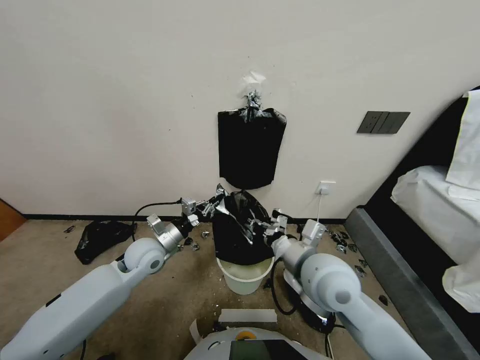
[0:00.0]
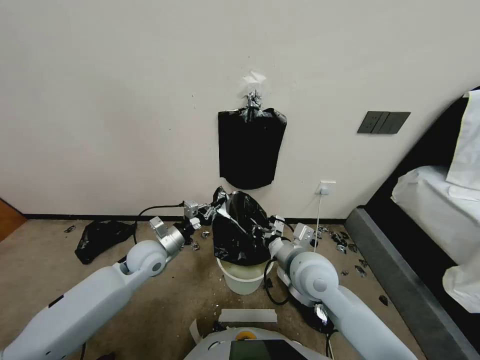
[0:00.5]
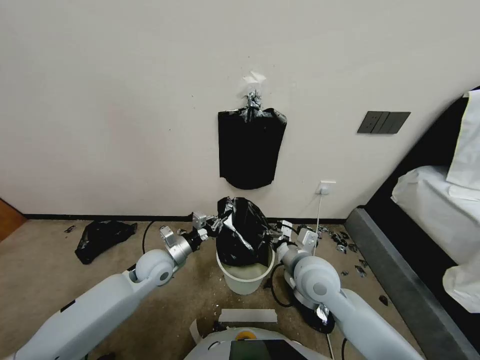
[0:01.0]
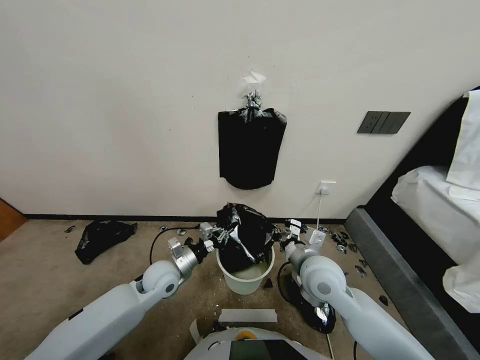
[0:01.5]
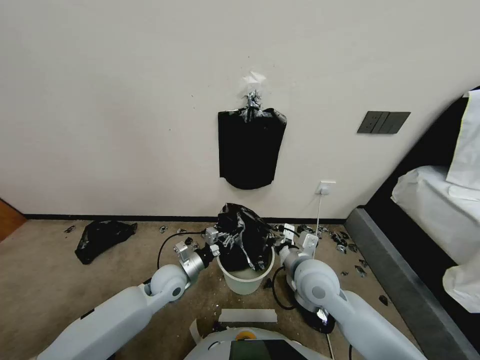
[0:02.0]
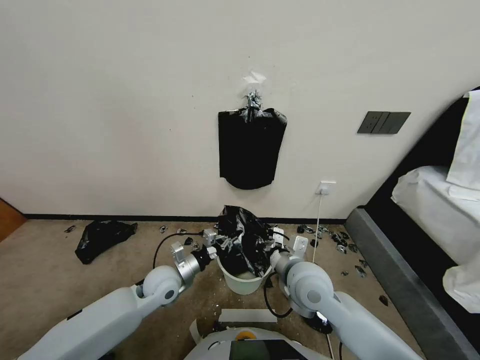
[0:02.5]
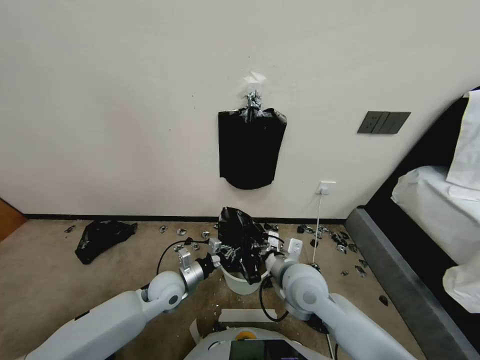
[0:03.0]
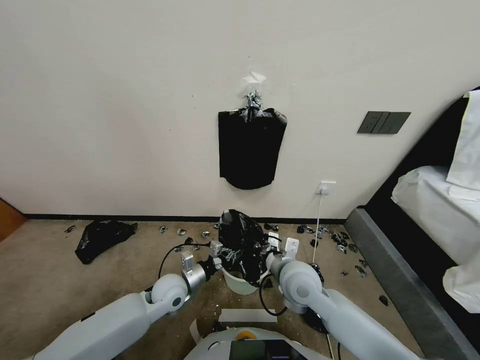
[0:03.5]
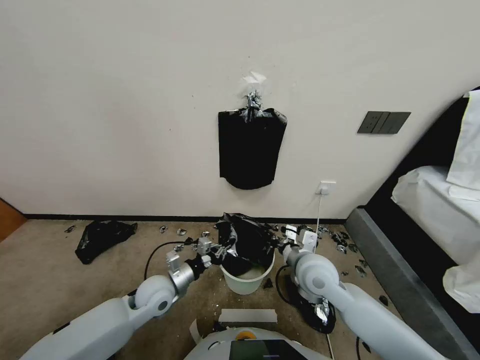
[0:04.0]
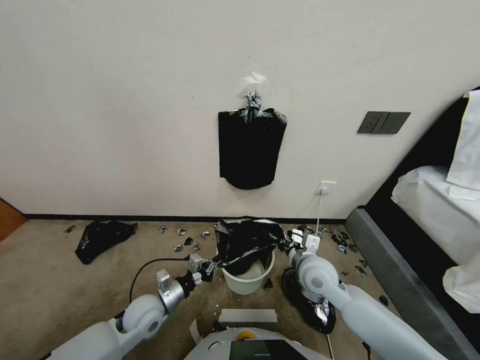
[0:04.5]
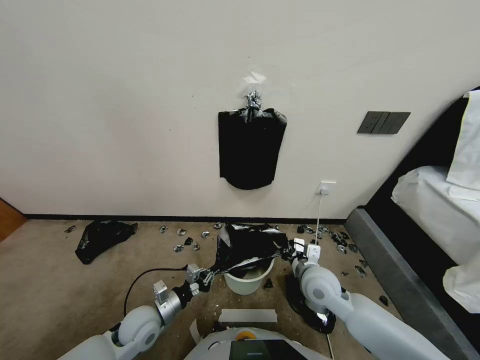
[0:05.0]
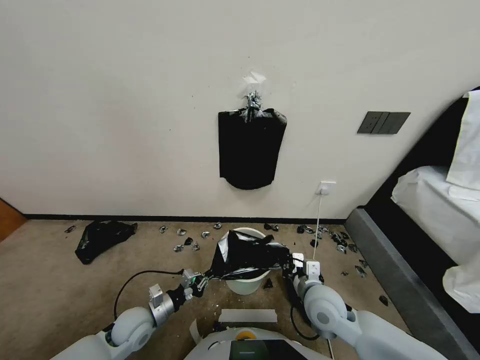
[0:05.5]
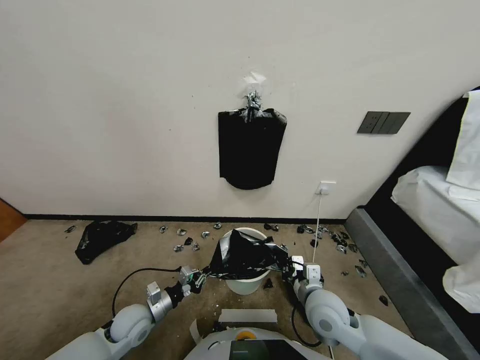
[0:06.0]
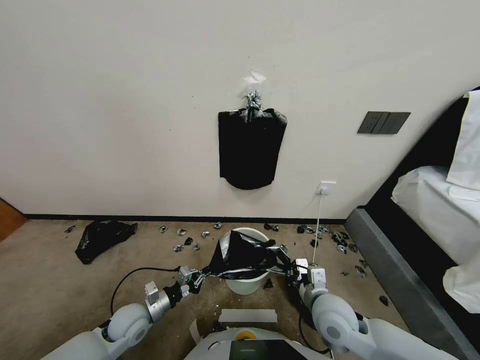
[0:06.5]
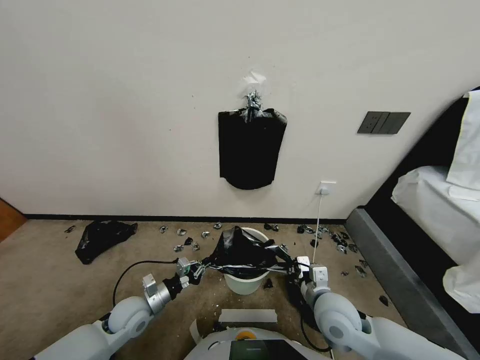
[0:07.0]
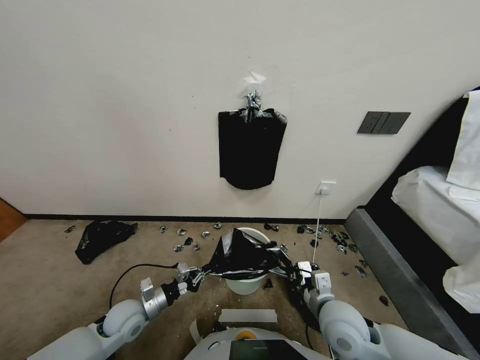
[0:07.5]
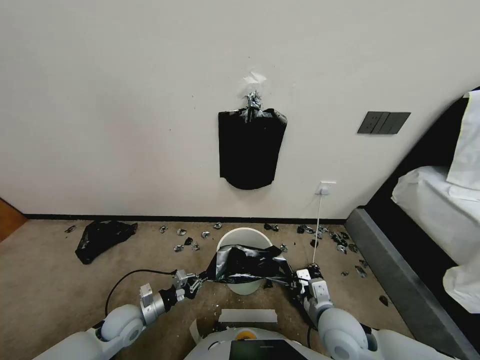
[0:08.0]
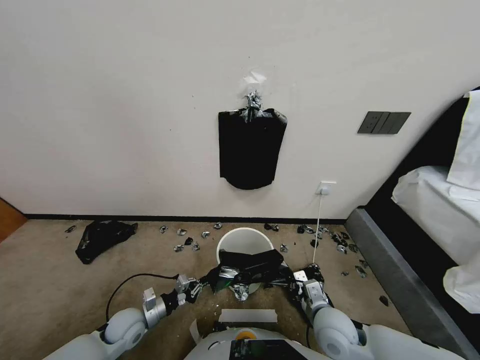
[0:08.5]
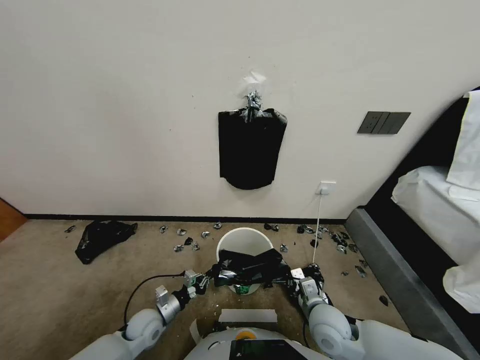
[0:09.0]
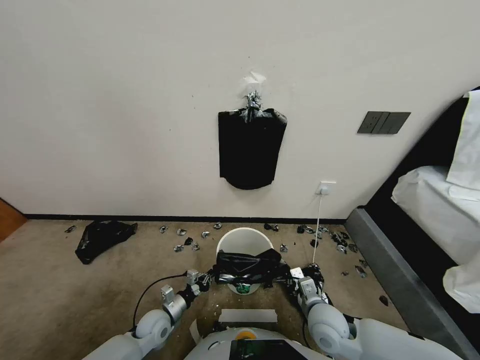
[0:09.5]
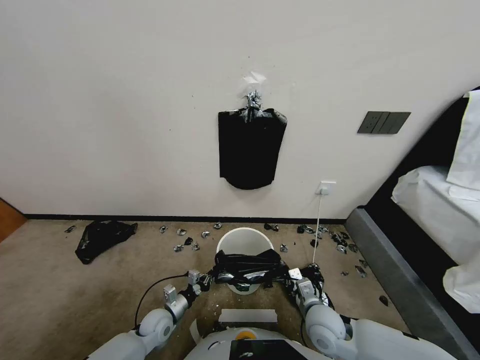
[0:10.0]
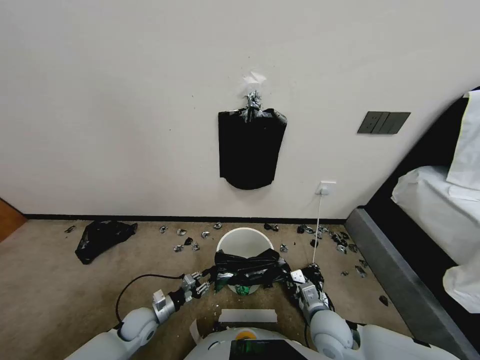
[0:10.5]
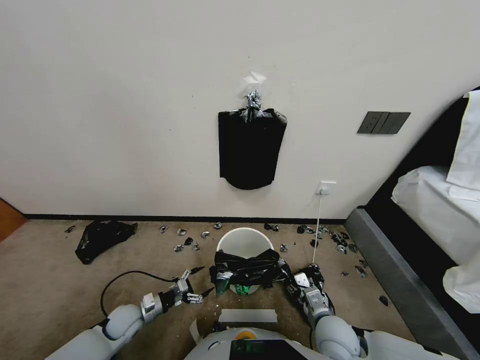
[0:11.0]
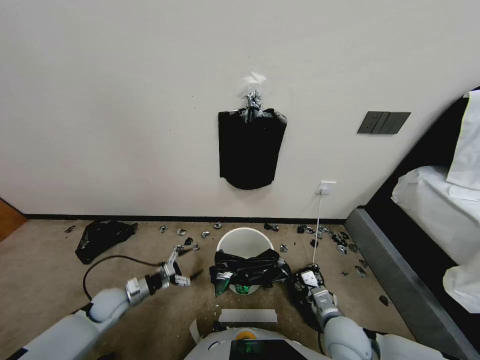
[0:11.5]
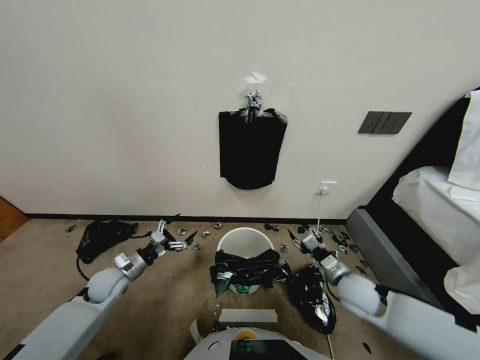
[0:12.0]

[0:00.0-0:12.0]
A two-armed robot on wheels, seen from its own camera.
Task of the whole recording: Place a trash bag onto the trash bin.
0:00.0 to 0:02.0: Both grippers travel together downward, about 5 cm.
0:02.0 to 0:04.0: The grippers make only small movements.
0:04.0 to 0:06.0: The right gripper shifts some 10 cm backward and downward. Meanwhile the left gripper shifts approximately 10 cm downward and to the left.
0:06.0 to 0:08.0: There are only small adjustments of the grippers.
0:08.0 to 0:10.0: The right gripper is displaced downward by some 5 cm; the left gripper shifts roughly 10 cm downward and to the right.
0:10.0 to 0:12.0: The left gripper is displaced upward, to the left and forward by some 20 cm, and opens; the right gripper moves to the right, forward and upward, roughly 15 cm, and opens its fingers.

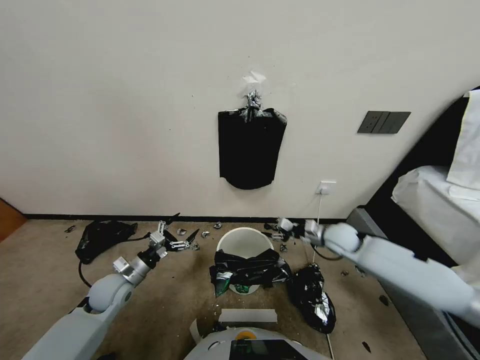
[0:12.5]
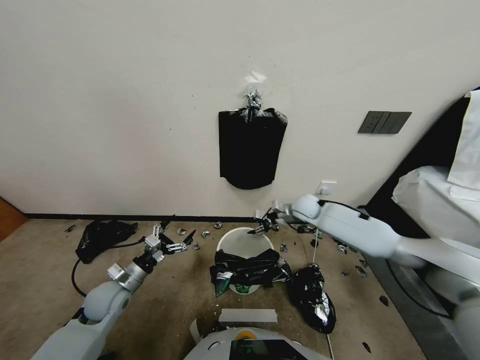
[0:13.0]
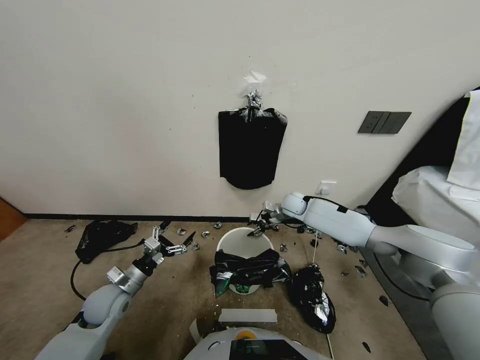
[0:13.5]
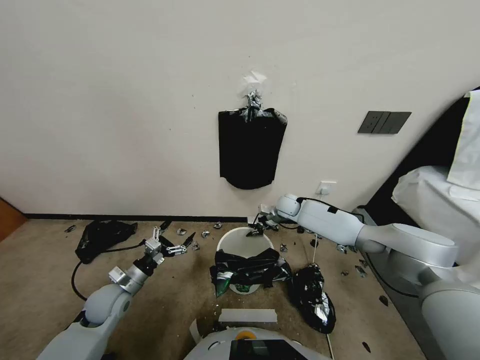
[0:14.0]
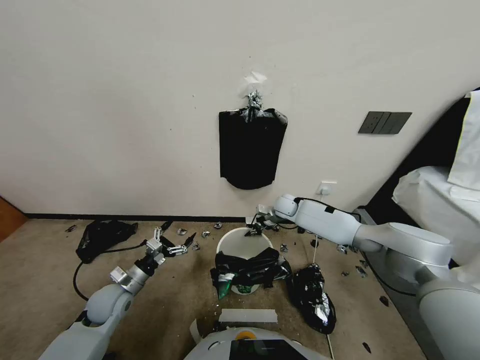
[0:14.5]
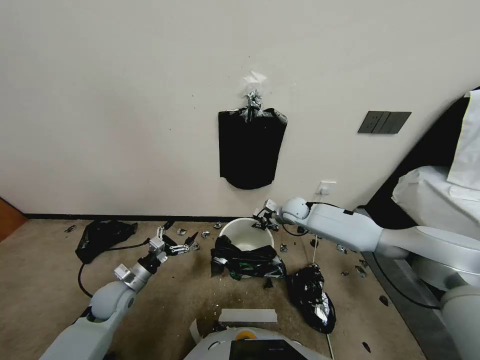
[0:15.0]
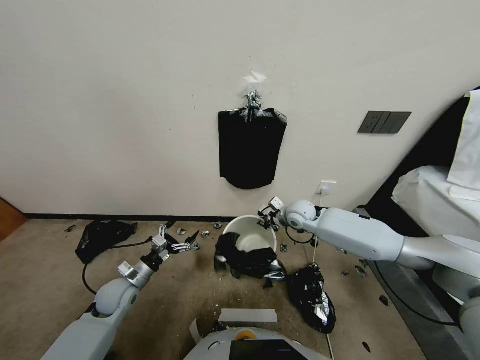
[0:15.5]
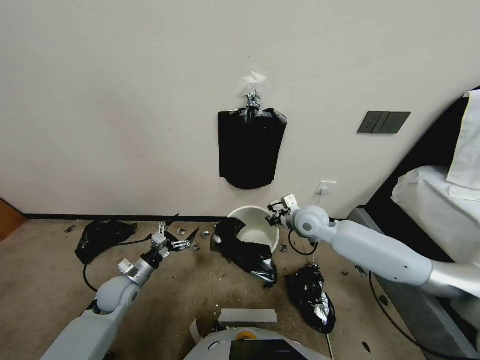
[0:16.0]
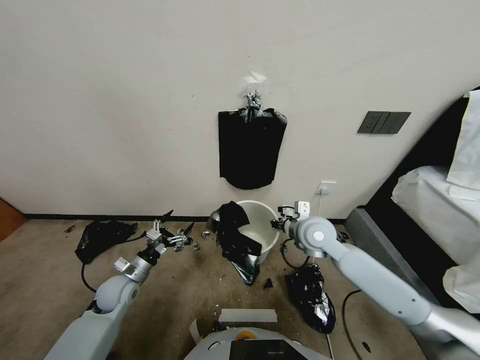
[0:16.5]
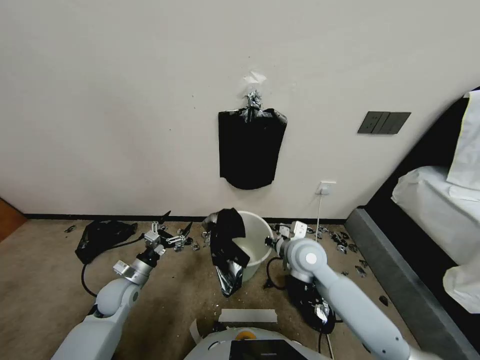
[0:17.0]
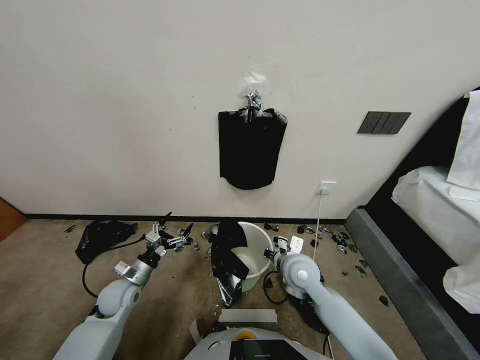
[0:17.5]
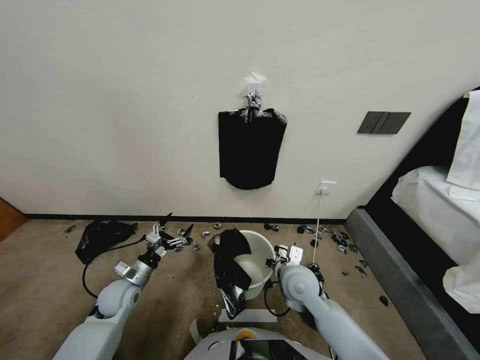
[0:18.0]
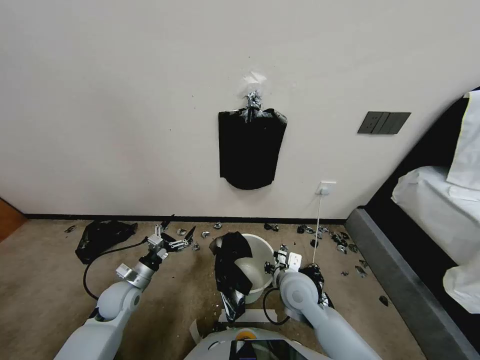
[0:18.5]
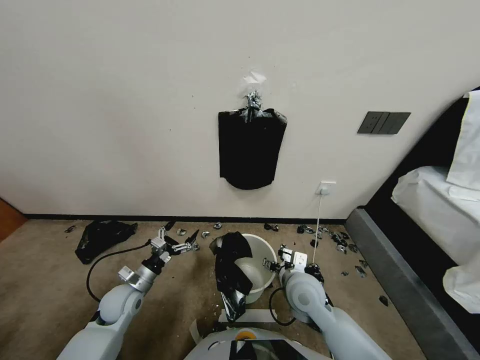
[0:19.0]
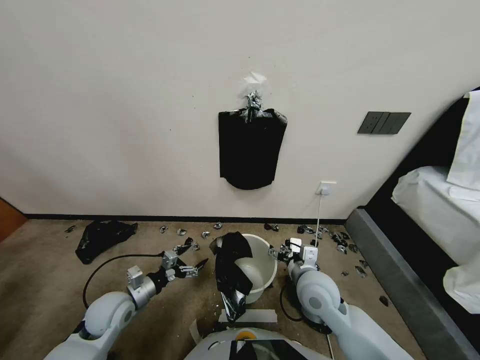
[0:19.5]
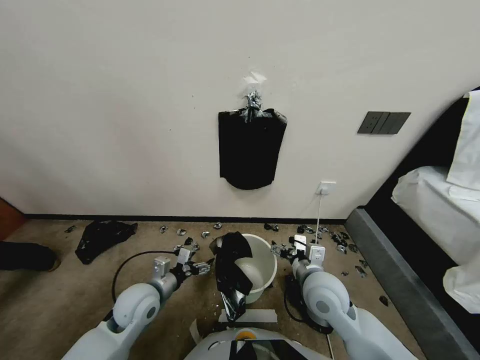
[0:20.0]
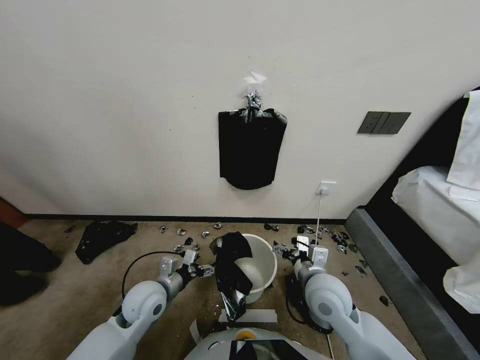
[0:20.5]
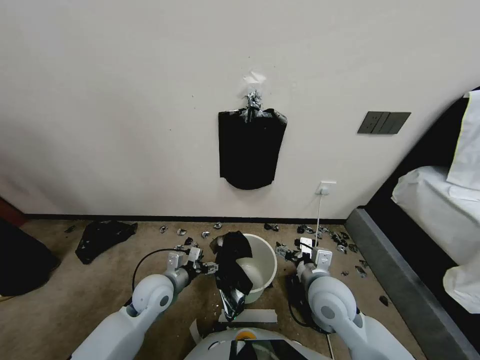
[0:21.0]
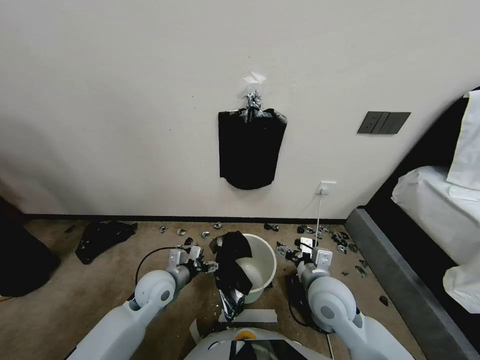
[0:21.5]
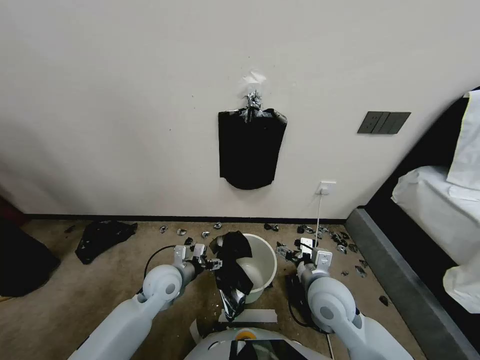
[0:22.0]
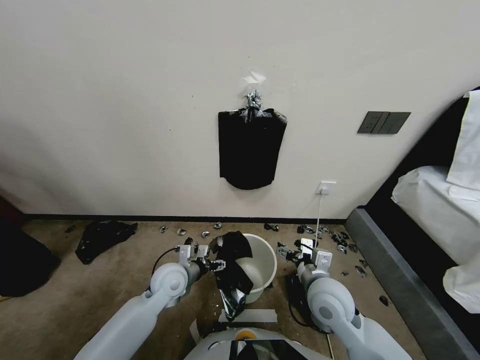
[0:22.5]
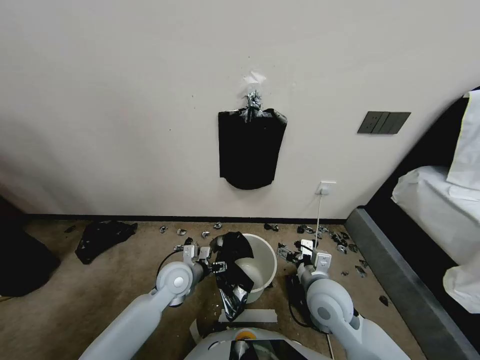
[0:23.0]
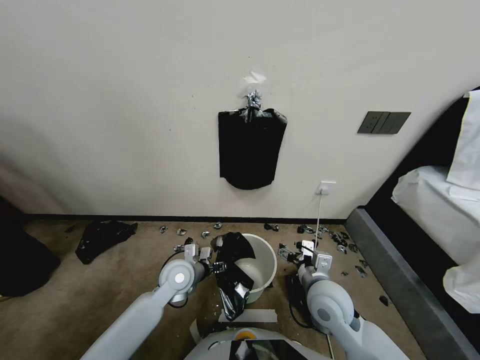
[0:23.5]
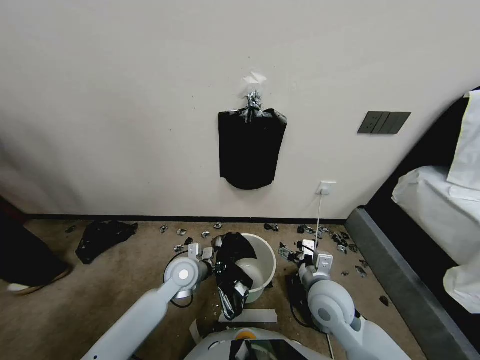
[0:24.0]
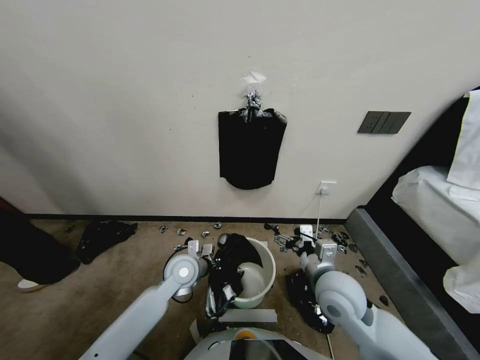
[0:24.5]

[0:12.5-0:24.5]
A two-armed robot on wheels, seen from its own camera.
Task of the whole recording: Place a trash bag onto the trash bin.
0:12.5 to 0:14.5: The right gripper is displaced forward and to the left by about 15 cm, and closes its fingers.
0:14.5 to 0:16.5: The right gripper moves backward and upward, roughly 20 cm.
0:16.5 to 0:18.5: The right gripper travels backward and downward by roughly 15 cm, and opens its fingers.
0:18.5 to 0:20.5: The right gripper moves upward, roughly 5 cm, and opens its fingers; the left gripper shifts some 10 cm to the right.
0:20.5 to 0:22.5: The left gripper shifts by roughly 5 cm.
0:22.5 to 0:24.5: The left gripper closes its fingers, while the right gripper goes some 5 cm upward.

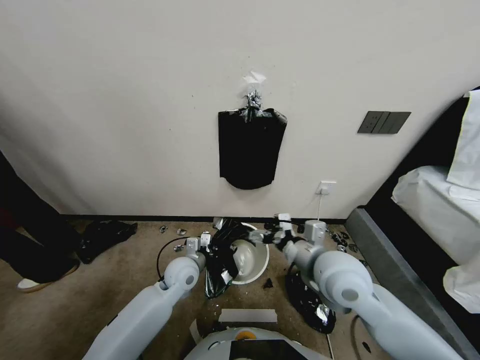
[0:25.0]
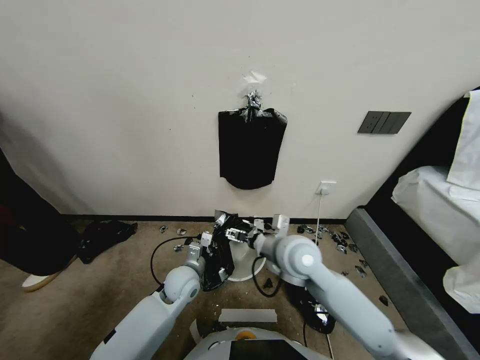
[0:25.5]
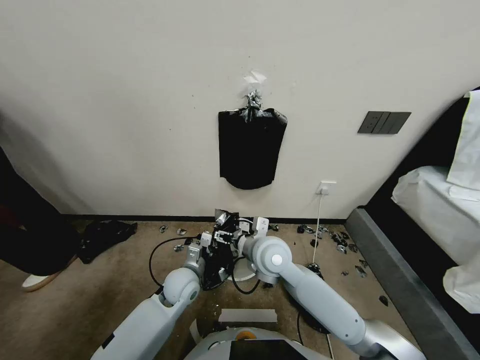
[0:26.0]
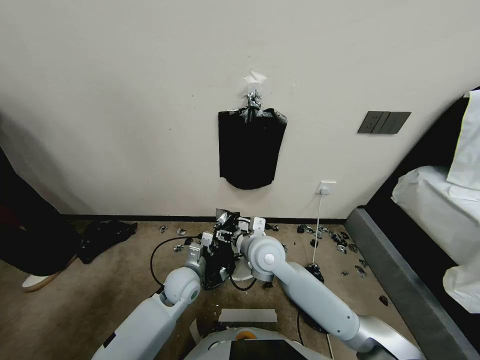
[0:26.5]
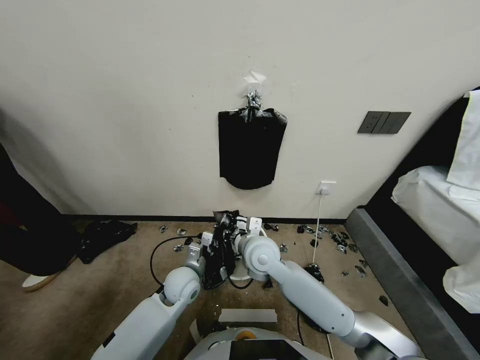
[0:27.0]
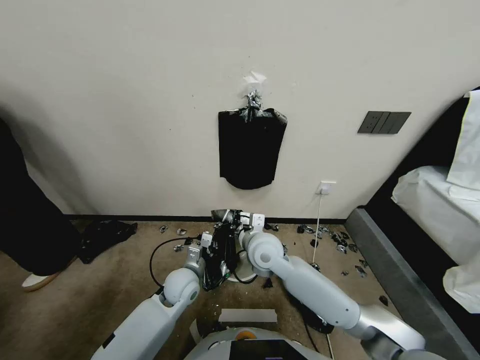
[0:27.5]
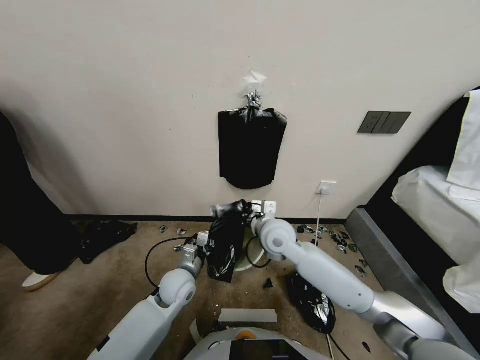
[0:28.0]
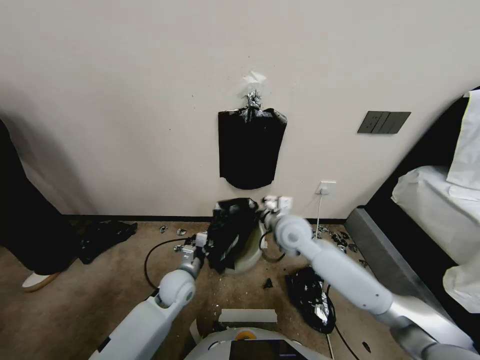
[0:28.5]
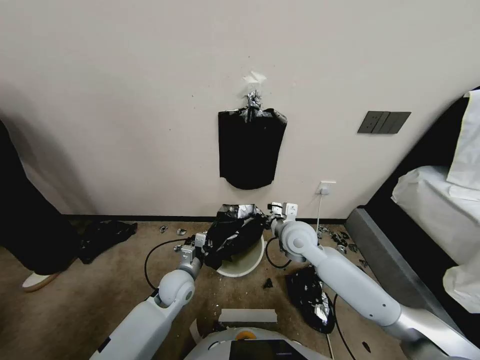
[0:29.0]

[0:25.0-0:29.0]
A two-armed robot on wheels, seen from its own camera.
Task of the whole recording: Place a trash bag onto the trash bin.
0:25.0 to 0:27.0: The right gripper is displaced to the left, forward and downward by roughly 15 cm, and closes.
0:27.0 to 0:29.0: The right gripper shifts about 10 cm to the right.
